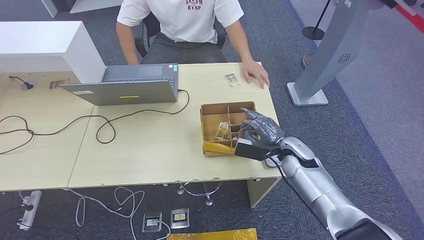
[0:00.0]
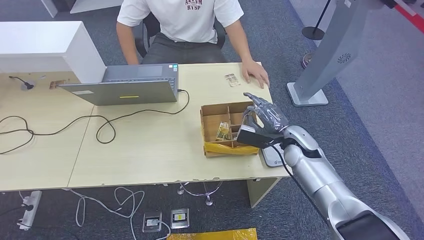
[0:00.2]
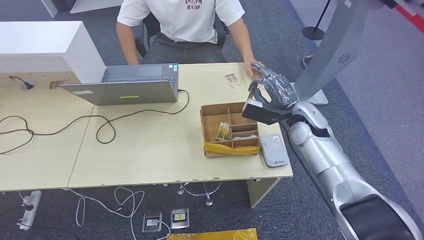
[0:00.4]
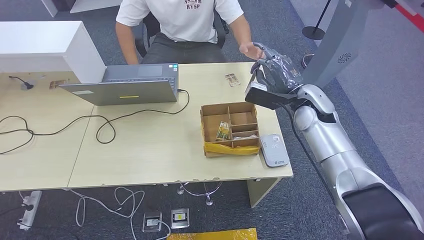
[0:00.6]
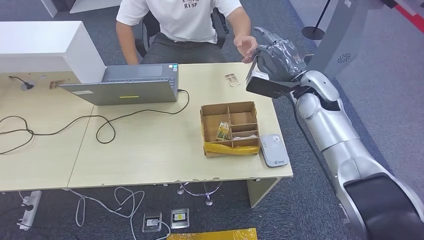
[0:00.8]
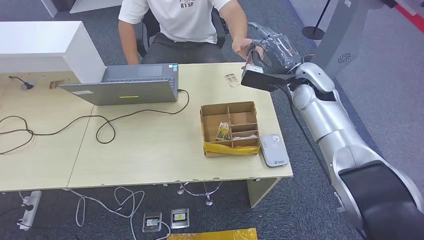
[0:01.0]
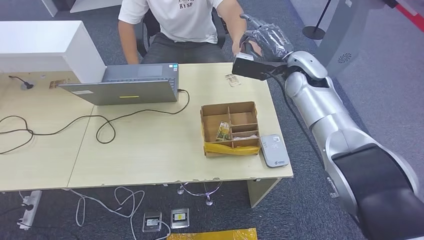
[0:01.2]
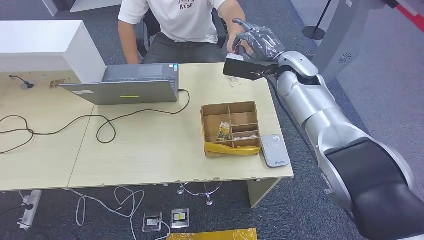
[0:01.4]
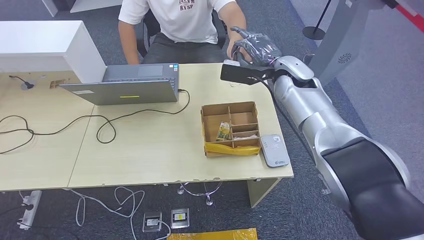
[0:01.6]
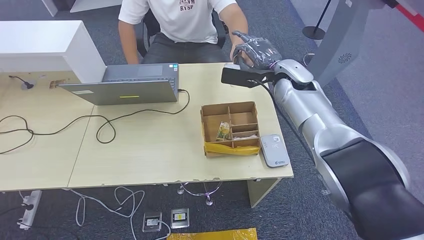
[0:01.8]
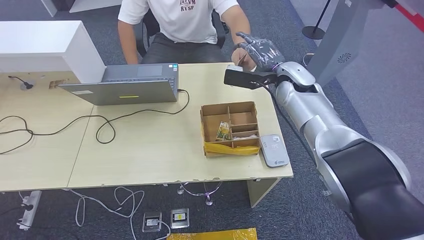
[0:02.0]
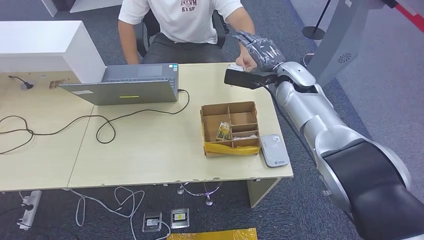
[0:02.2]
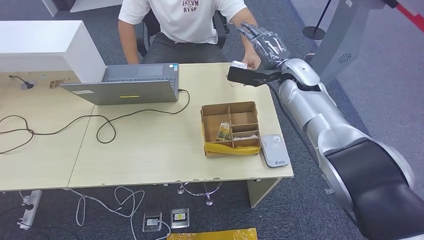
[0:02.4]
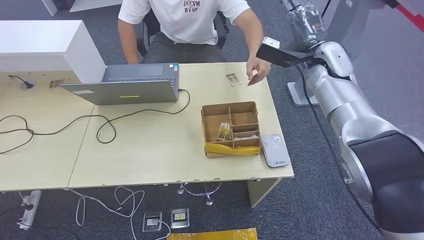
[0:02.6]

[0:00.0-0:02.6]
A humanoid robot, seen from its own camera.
Step, 0:00.4 to 0:02.6: Hand the room key to the person.
0:00.0 to 0:01.2: The right hand shifts about 25 cm upward and forward.
0:01.2 to 0:02.6: The right hand heads to the right, covering some 5 cm.
